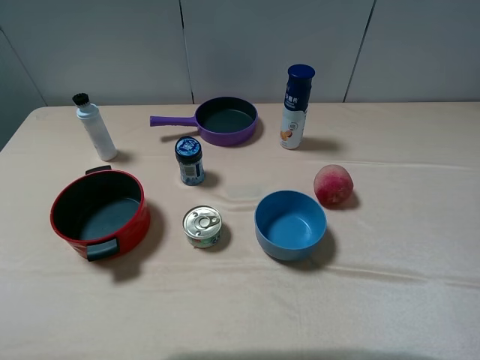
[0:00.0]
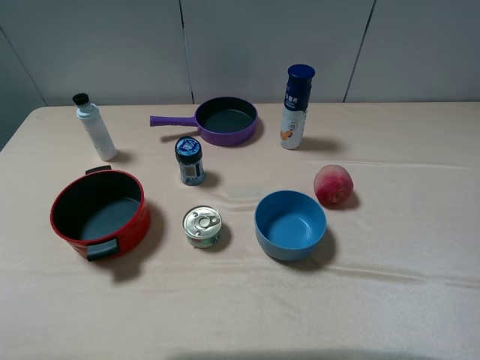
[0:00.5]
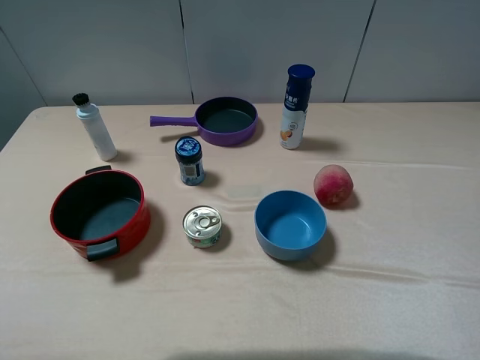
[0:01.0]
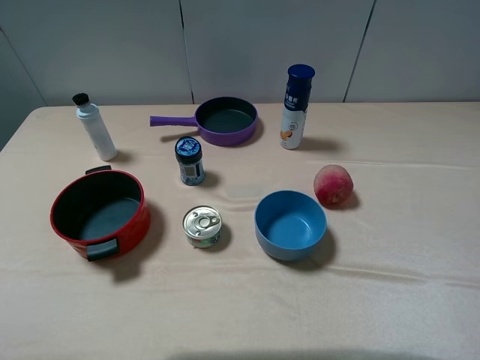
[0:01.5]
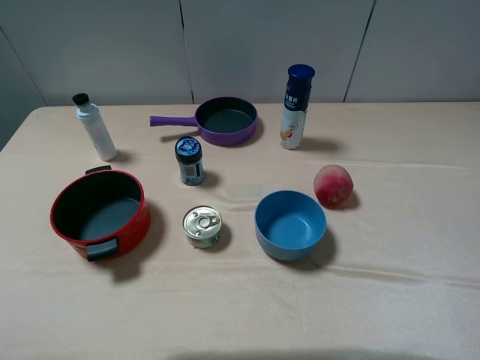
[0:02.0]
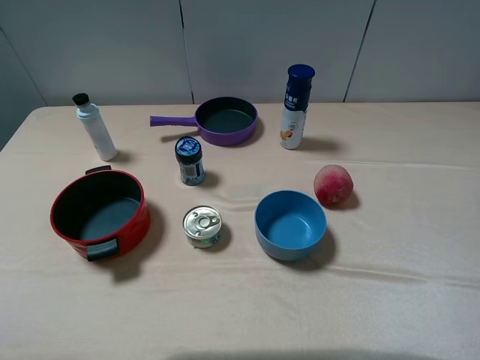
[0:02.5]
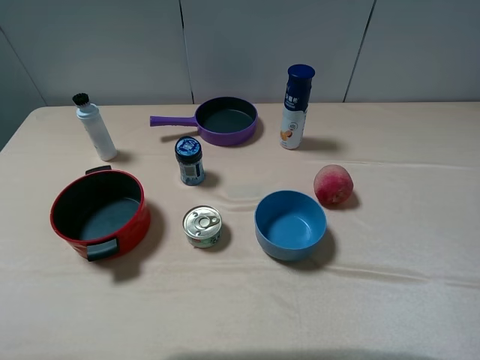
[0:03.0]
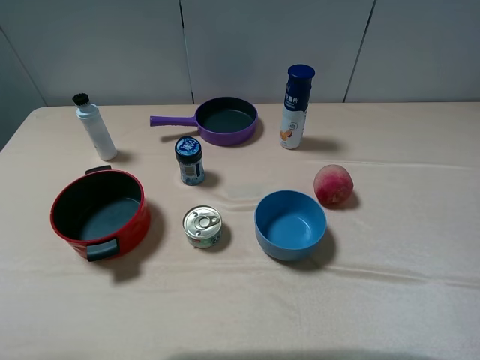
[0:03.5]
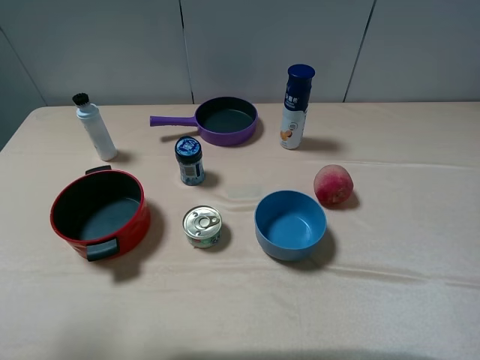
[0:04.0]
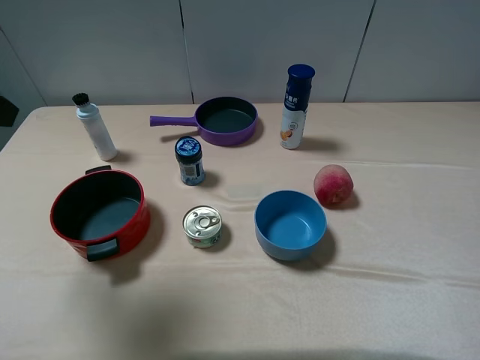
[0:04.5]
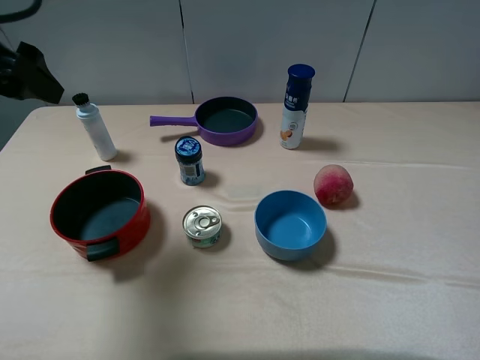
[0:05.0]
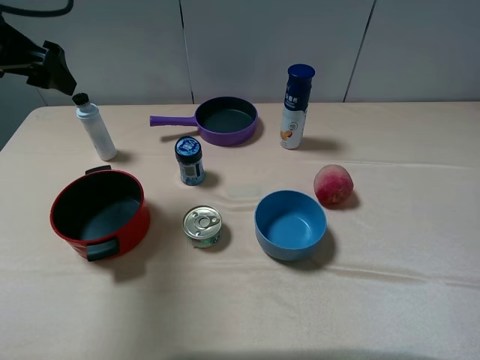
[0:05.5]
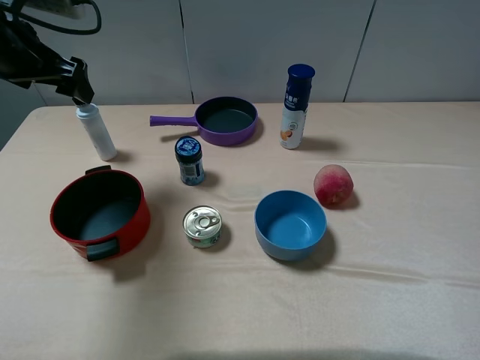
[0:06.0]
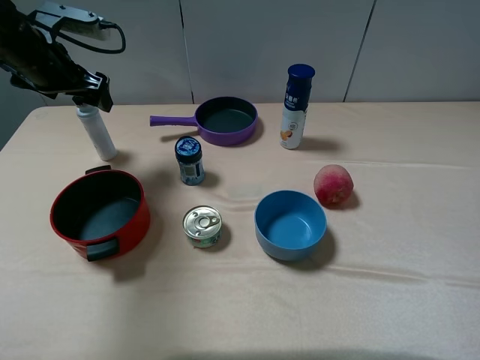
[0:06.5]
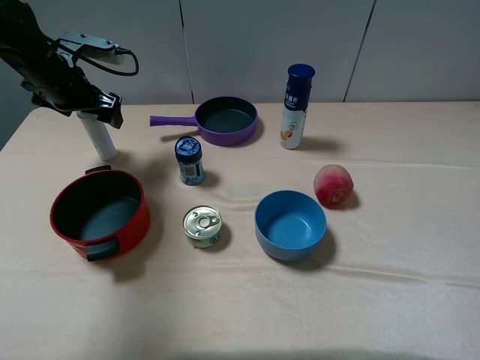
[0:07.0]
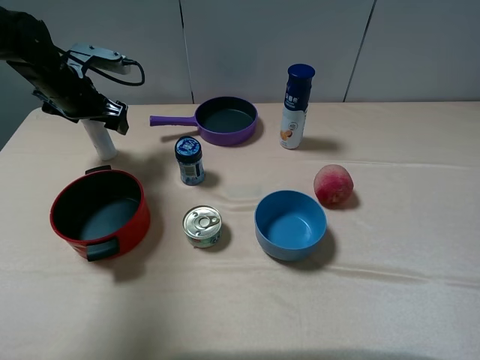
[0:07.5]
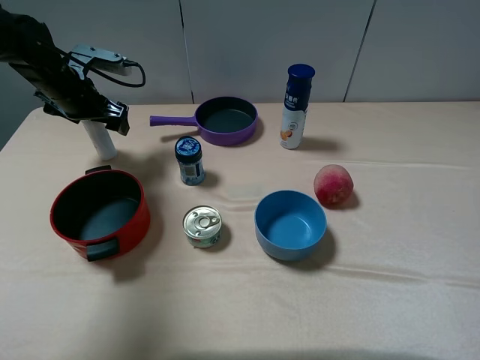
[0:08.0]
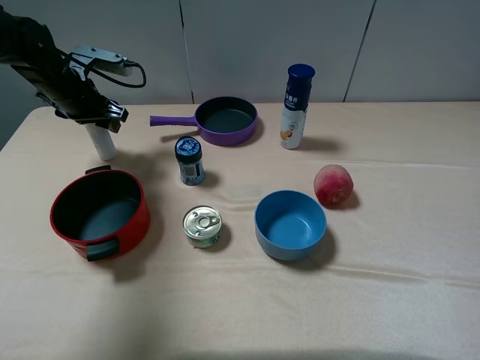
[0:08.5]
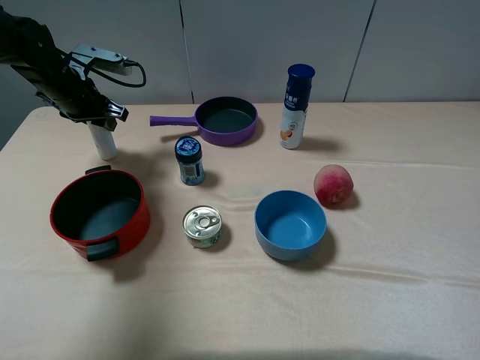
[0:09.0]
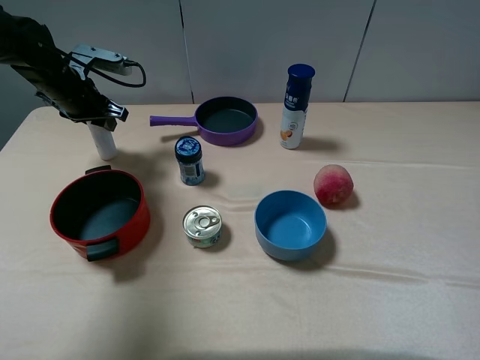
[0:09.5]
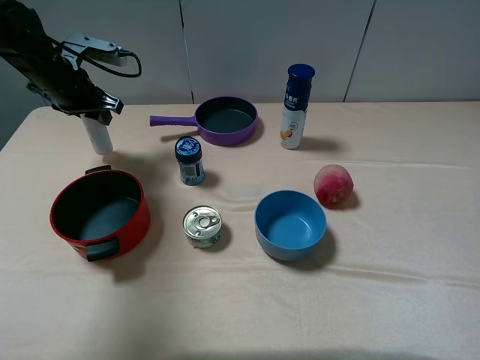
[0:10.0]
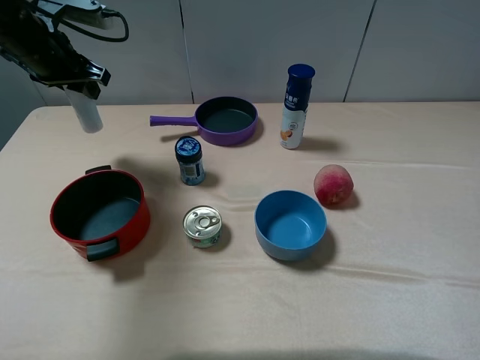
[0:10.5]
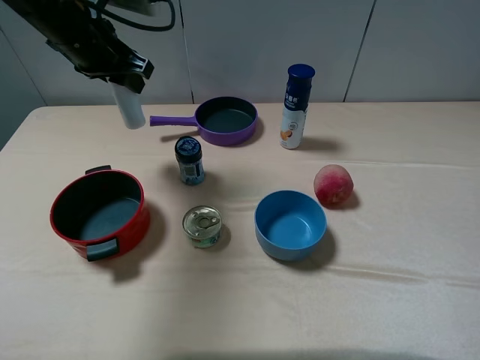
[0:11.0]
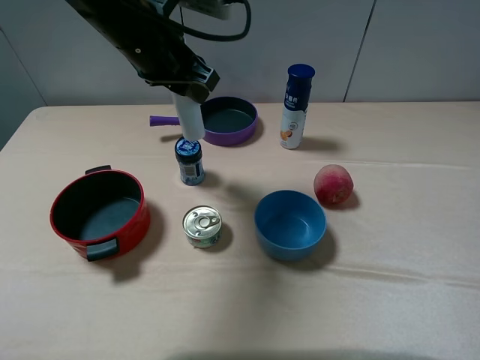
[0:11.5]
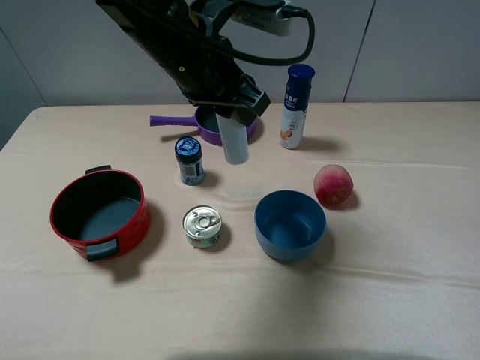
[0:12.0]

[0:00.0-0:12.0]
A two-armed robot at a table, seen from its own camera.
Task of the whole recording: pick up an item with a gripper and place it in a random container on the table.
Step, 0:00.0 to 0:08.5: Grasp the cleaning agent with the left gripper.
0:00.0 to 0:02.0: Both grippers stay about where they are.
0:02.0 to 0:04.0: The left gripper goes roughly 10 cm forward and upward.
0:04.0 to 0:06.0: The left gripper travels forward by approximately 25 cm.
0:06.0 to 0:08.0: The left gripper moves downward and forward, about 15 cm.
0:08.0 to 0:10.0: The left gripper closes.
0:10.0 to 0:12.0: The left gripper moves to the right and backward, approximately 25 cm.

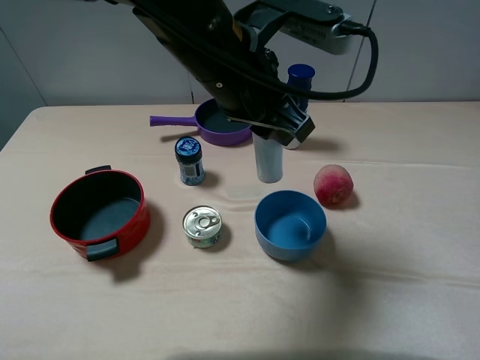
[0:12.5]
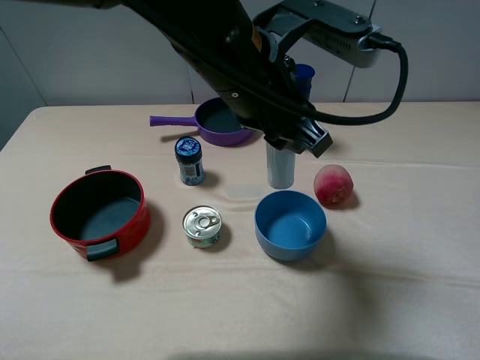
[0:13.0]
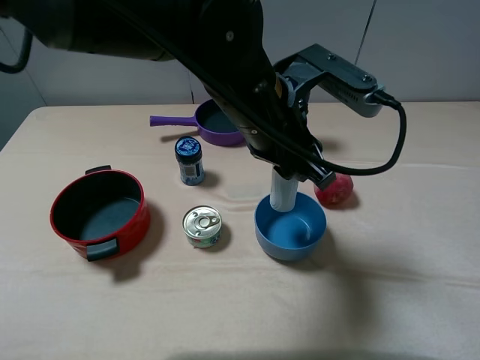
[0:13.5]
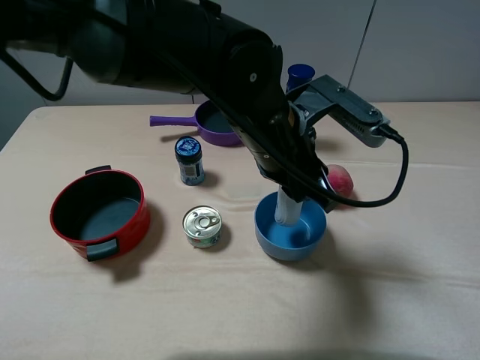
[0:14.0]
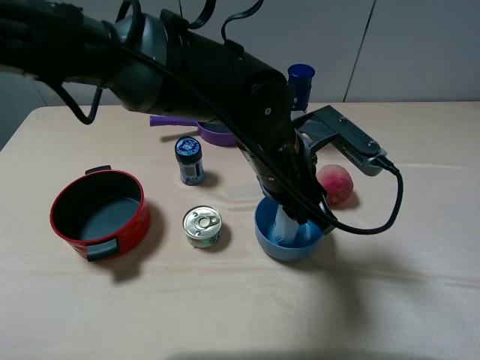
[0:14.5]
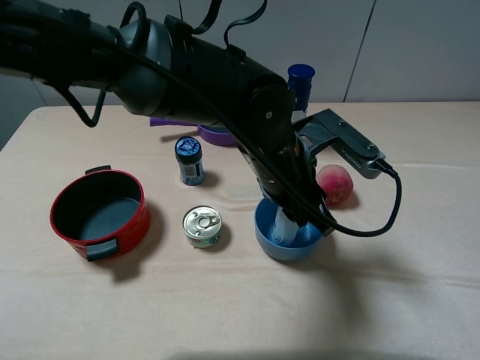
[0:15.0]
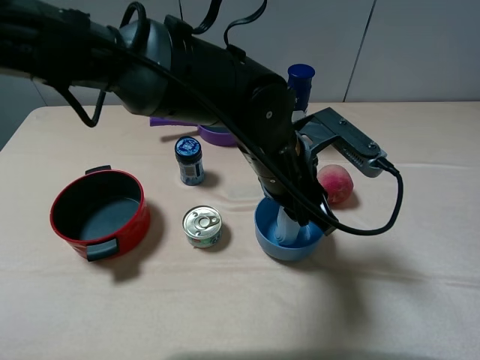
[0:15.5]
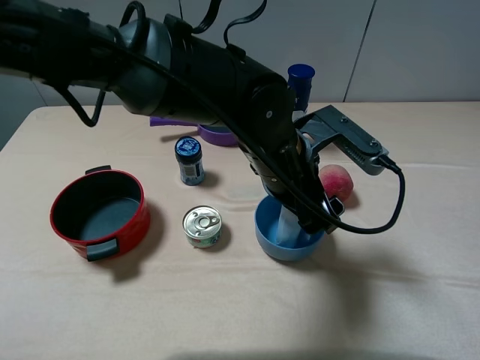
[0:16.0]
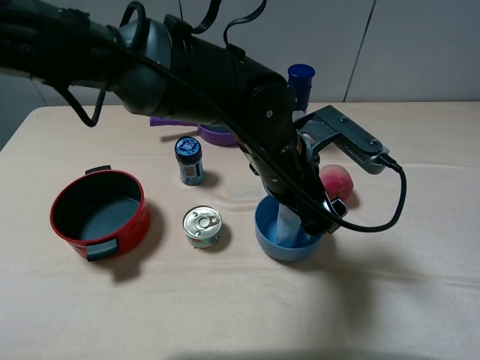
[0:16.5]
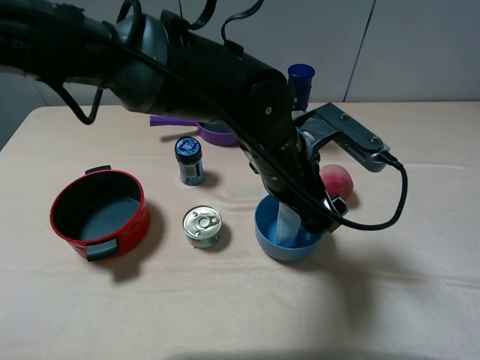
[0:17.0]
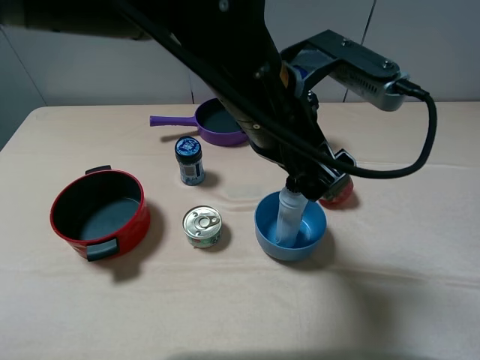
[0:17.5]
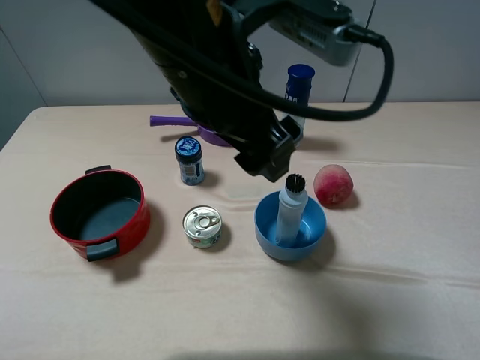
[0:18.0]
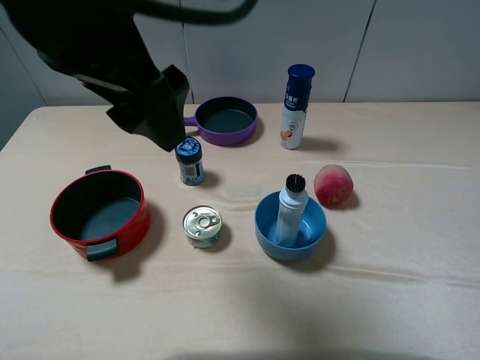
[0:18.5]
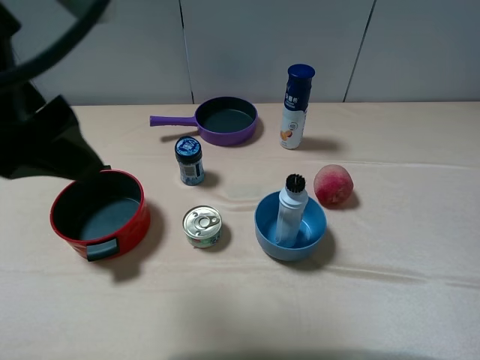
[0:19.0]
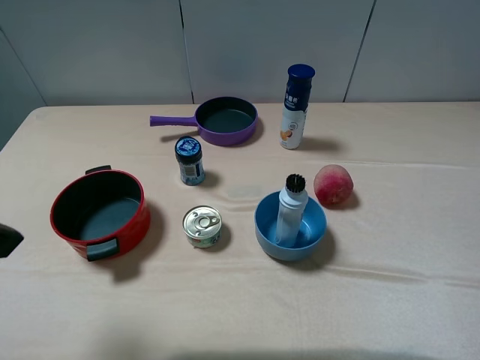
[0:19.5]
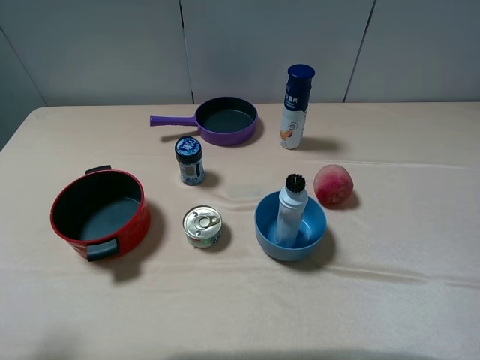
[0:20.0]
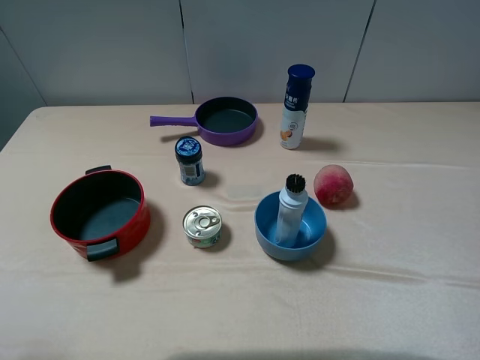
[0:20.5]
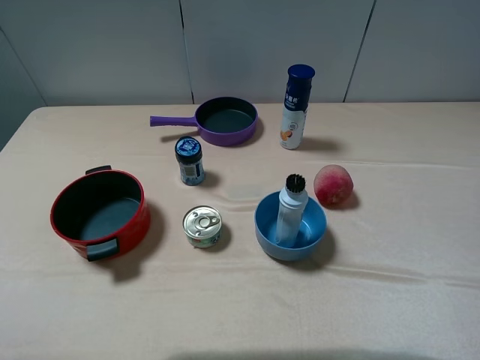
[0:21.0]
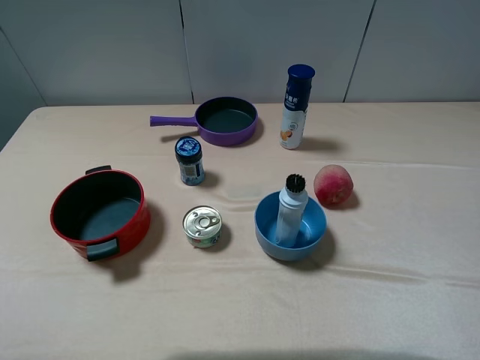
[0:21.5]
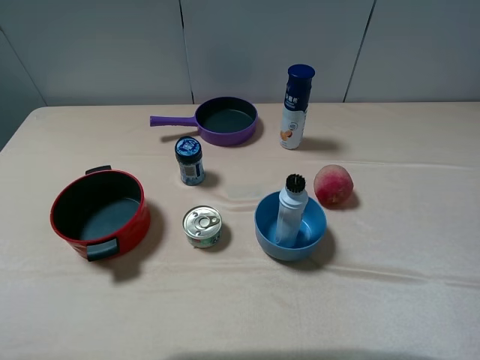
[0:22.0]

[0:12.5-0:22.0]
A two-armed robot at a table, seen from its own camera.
Task of the whole recording: pick up an item with a gripper and place it in a random container on the table.
Step, 0:12.5 to 0:16.0: Place the cleaning agent into the pink bowl with the left gripper.
0:12.5 to 0:14.5: The left gripper goes roughly 10 cm downward and to the right.
0:14.5 to 0:16.5: The left gripper opens.
0:16.5 to 0:18.0: The left gripper is displaced upward and to the left by about 15 cm.
0:18.0 to 0:20.0: The left gripper goes about 30 cm to the left and backward.
